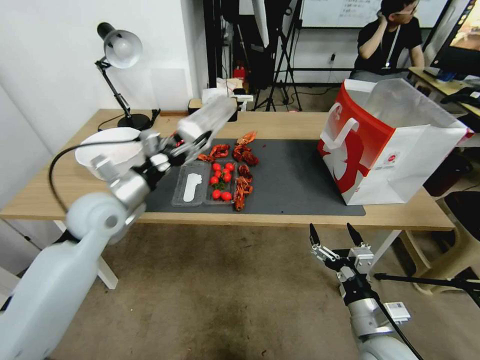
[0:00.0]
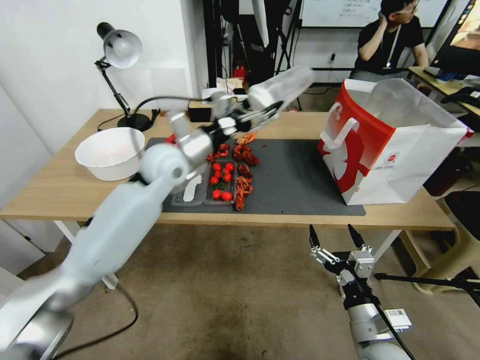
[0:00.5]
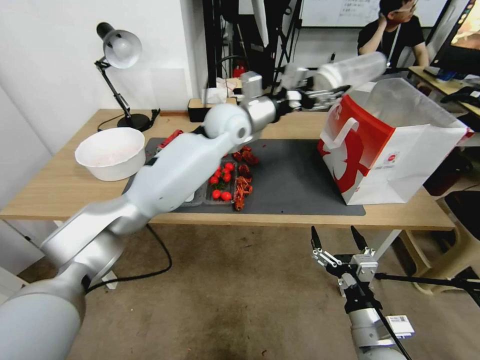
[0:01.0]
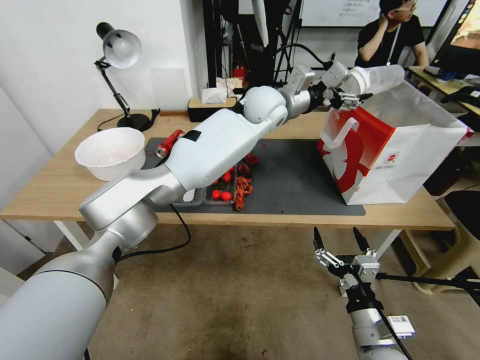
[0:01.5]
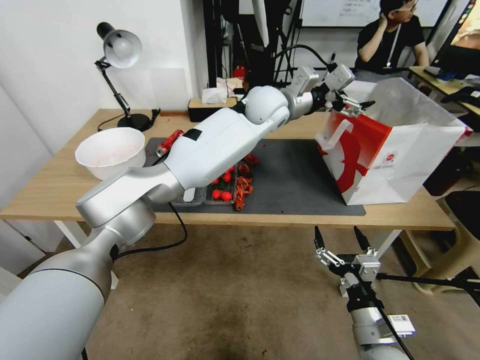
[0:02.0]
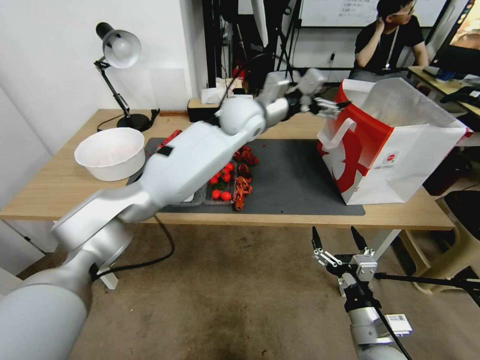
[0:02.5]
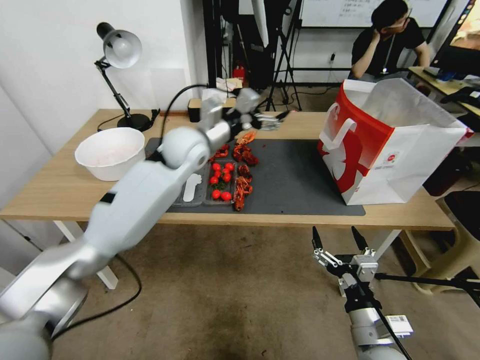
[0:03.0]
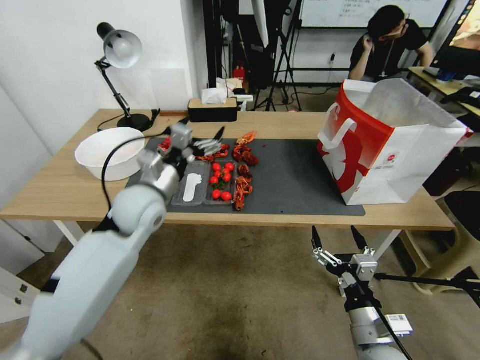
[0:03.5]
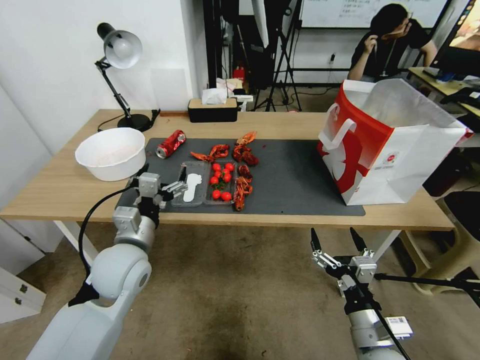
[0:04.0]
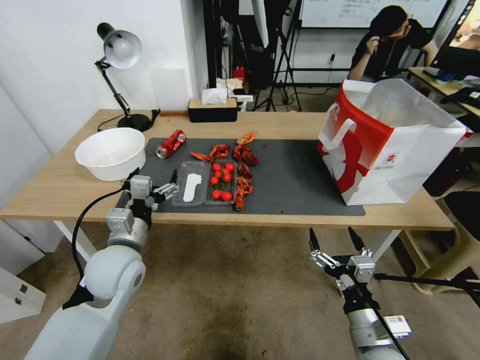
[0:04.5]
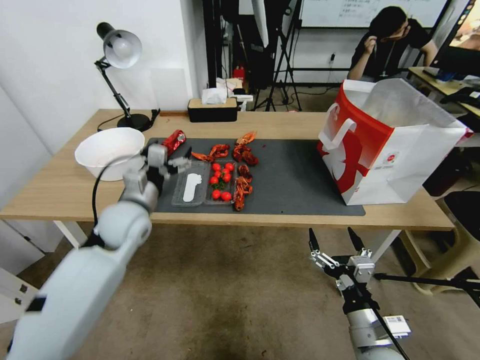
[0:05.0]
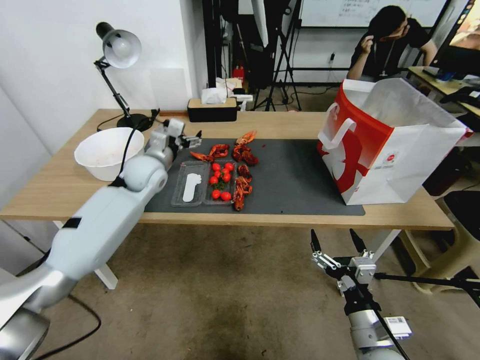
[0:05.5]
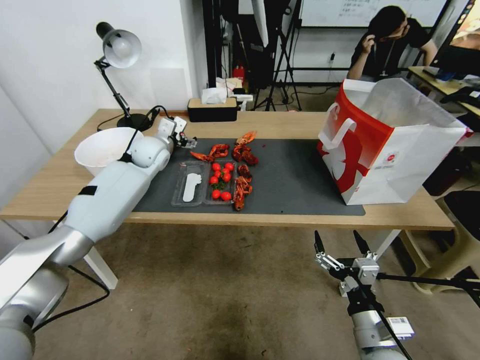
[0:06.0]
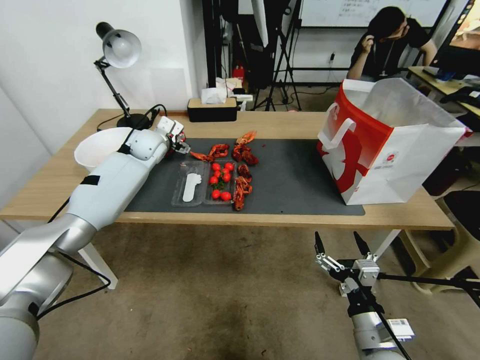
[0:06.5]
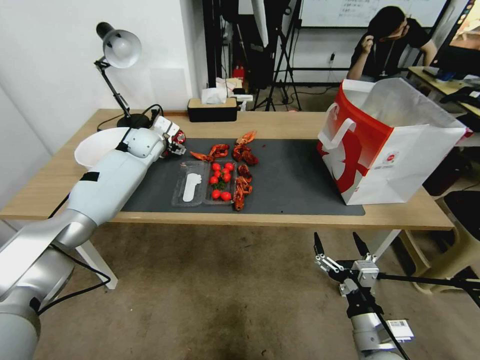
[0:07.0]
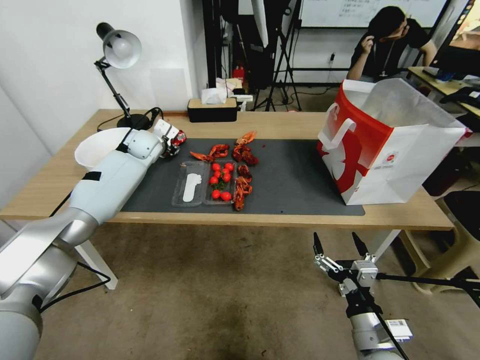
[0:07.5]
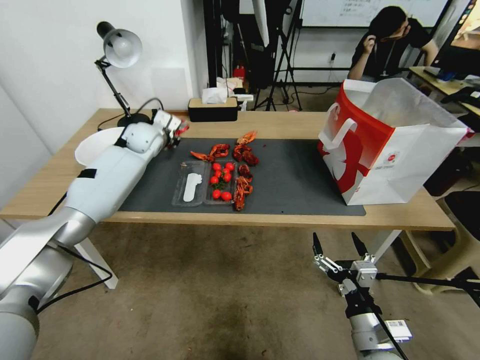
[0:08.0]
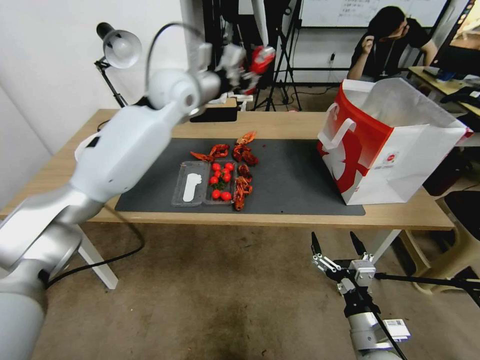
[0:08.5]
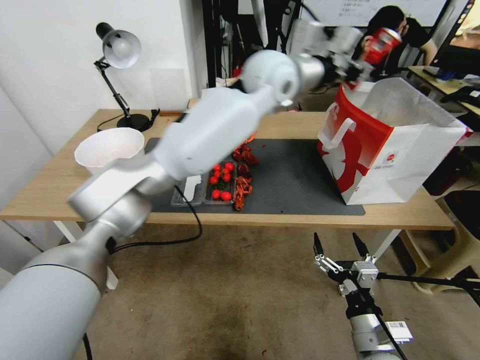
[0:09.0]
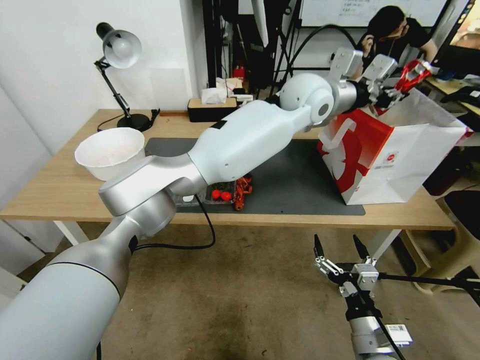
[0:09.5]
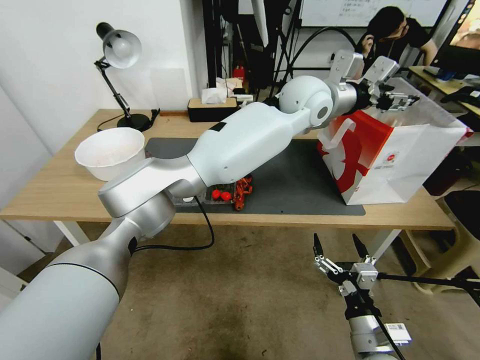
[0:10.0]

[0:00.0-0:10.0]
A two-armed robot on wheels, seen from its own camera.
0.0 to 2.0 s: The left gripper goes roughly 40 cm to the right and forward.
2.0 to 4.0 s: The left gripper travels to the left, backward and downward by about 40 cm.
4.0 to 6.0 s: The left gripper moves forward, about 25 cm.
6.0 to 8.0 s: The left gripper heads forward, covering approximately 5 cm, and closes its fingers.
8.0 to 10.0 s: The left gripper moves to the right, some 40 cm, and opens up.

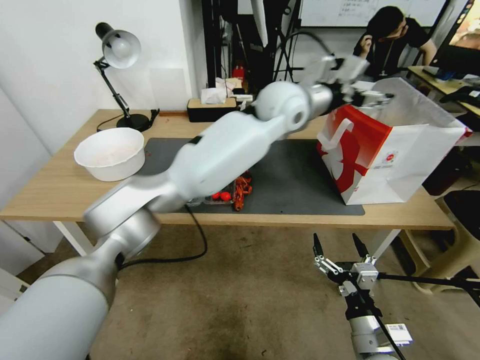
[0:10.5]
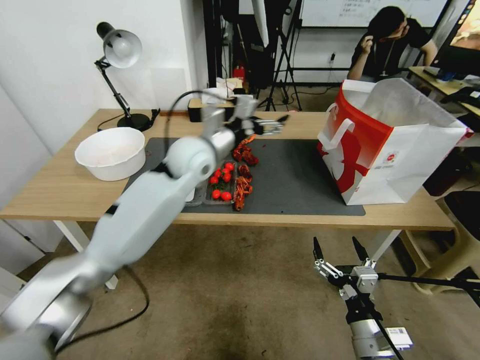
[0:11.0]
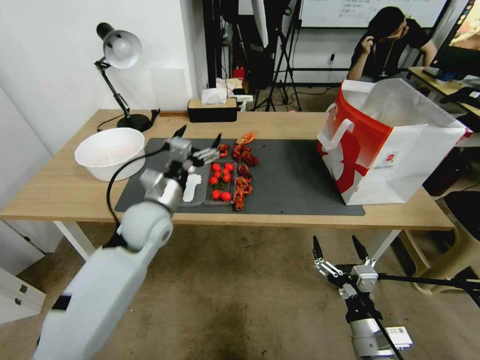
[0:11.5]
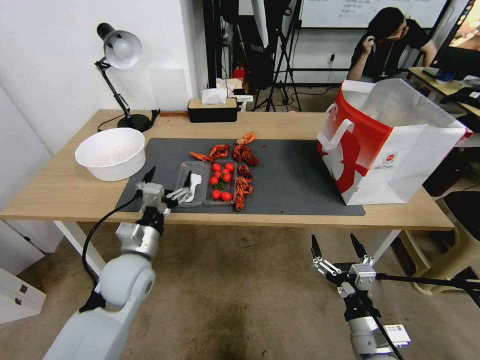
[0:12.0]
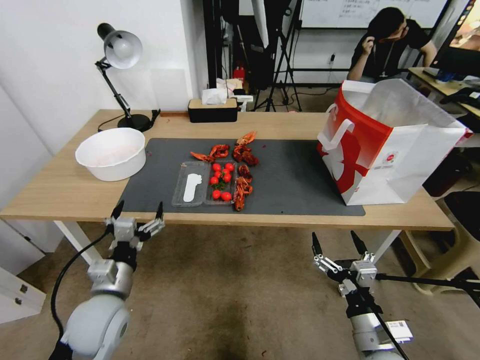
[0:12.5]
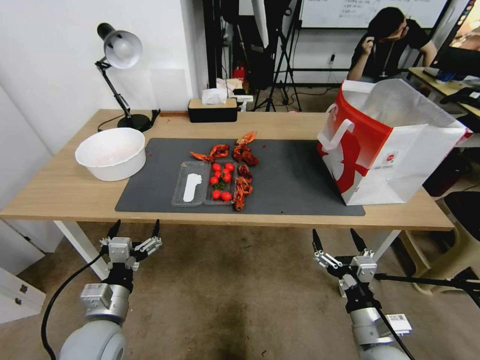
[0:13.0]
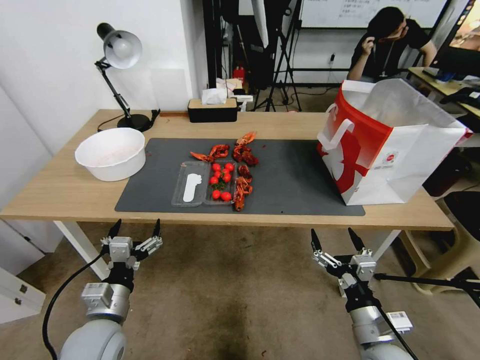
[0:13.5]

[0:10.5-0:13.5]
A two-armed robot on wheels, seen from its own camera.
10.5 to 12.0 s: The left gripper shifts some 50 cm to the left, downward and backward.
12.0 to 13.5 s: The left gripper is displaced backward by roughly 10 cm.

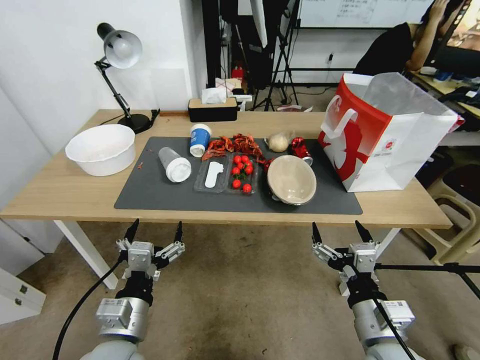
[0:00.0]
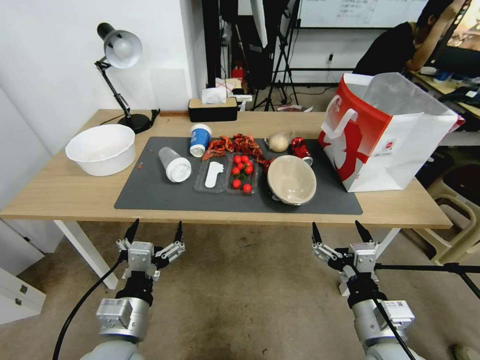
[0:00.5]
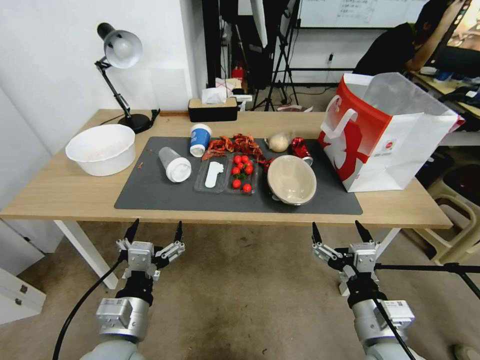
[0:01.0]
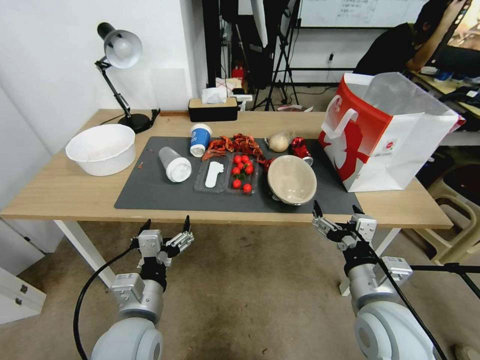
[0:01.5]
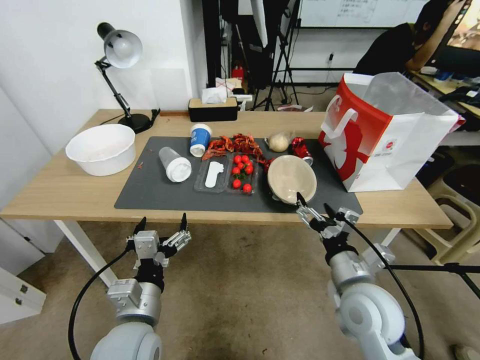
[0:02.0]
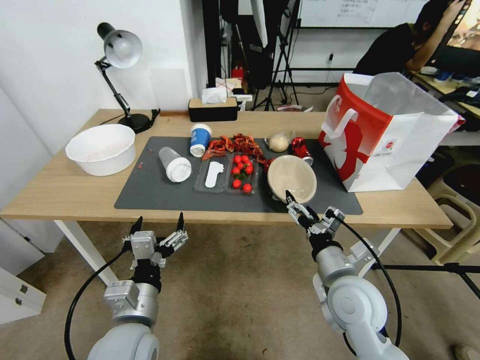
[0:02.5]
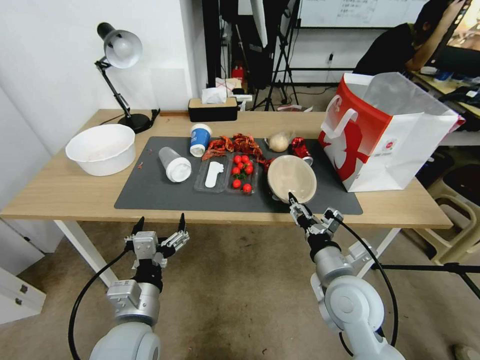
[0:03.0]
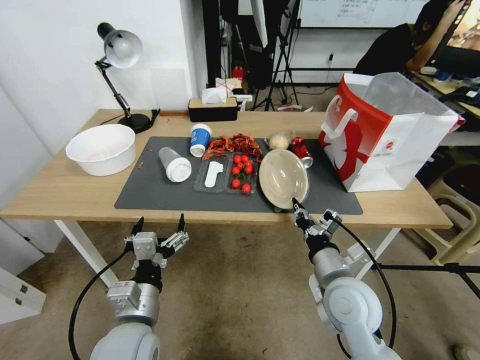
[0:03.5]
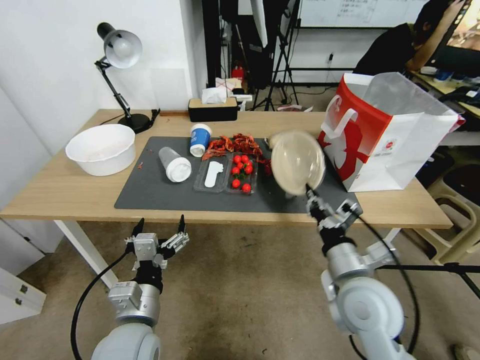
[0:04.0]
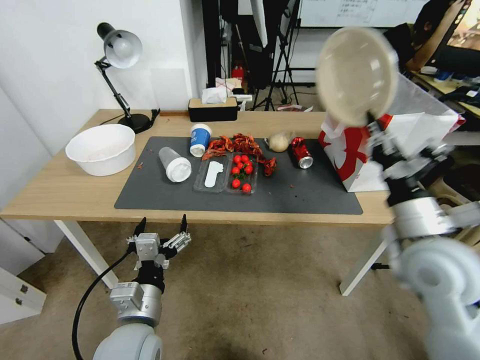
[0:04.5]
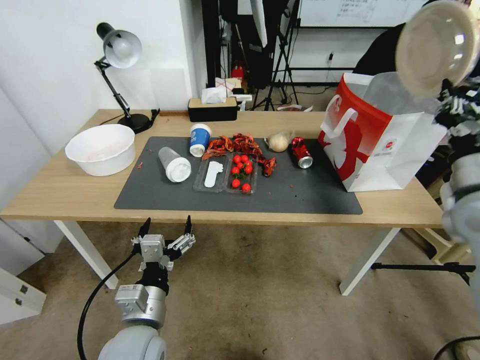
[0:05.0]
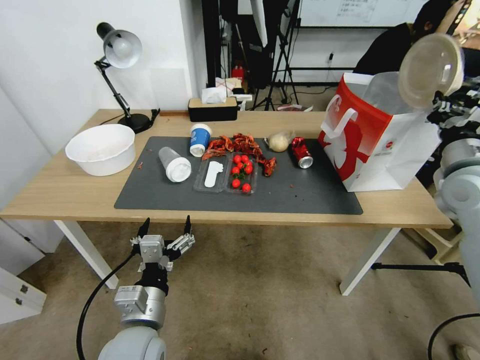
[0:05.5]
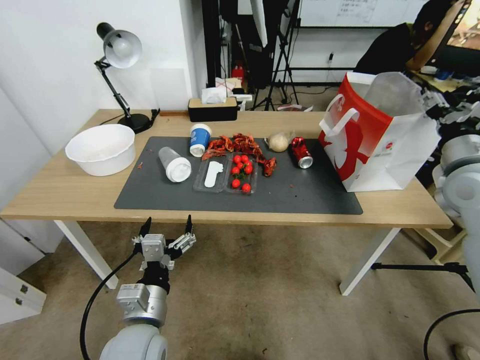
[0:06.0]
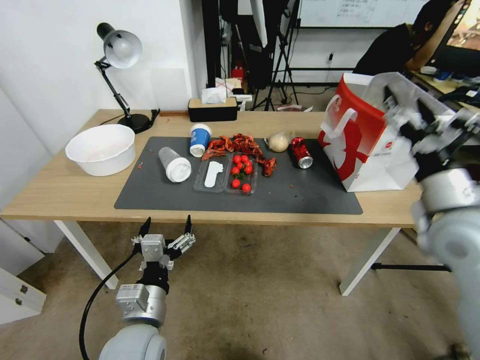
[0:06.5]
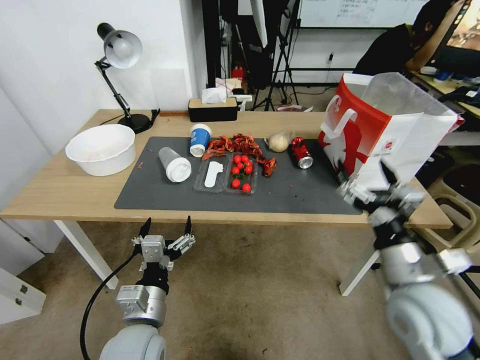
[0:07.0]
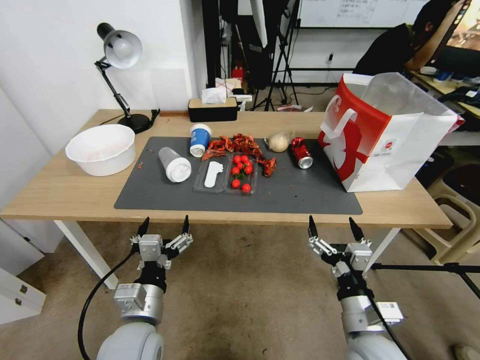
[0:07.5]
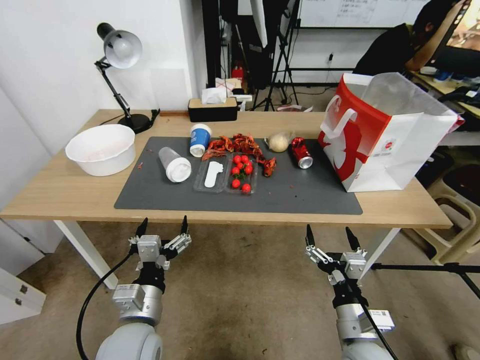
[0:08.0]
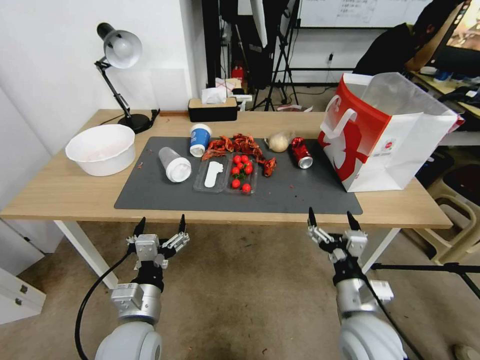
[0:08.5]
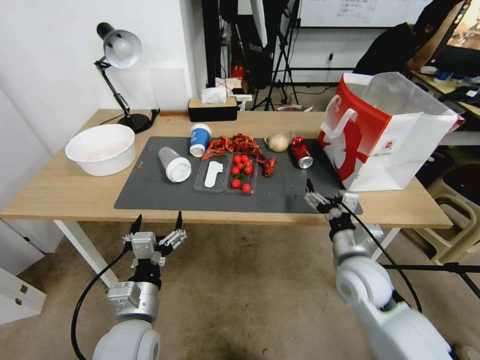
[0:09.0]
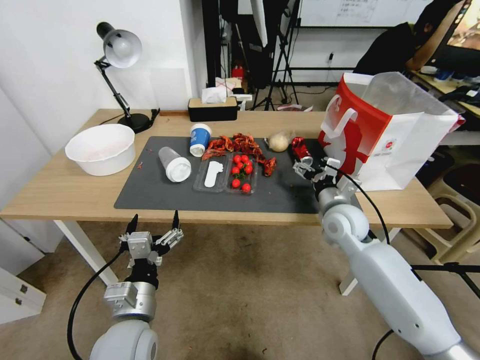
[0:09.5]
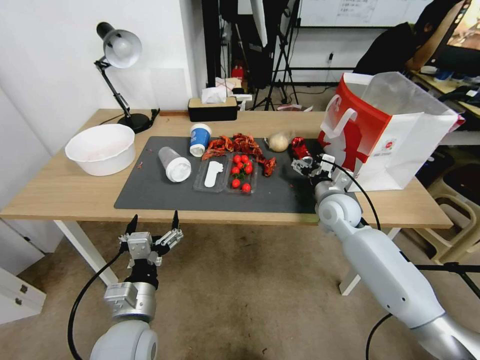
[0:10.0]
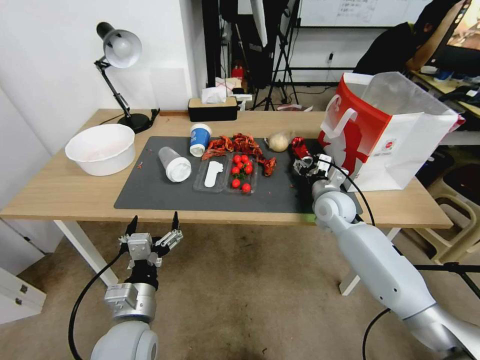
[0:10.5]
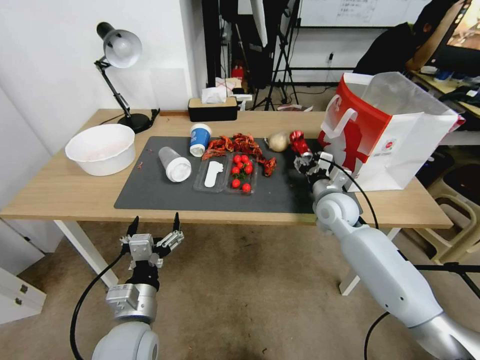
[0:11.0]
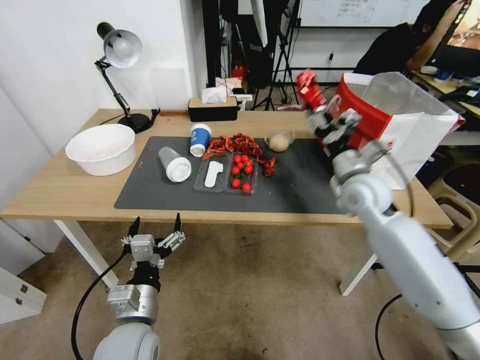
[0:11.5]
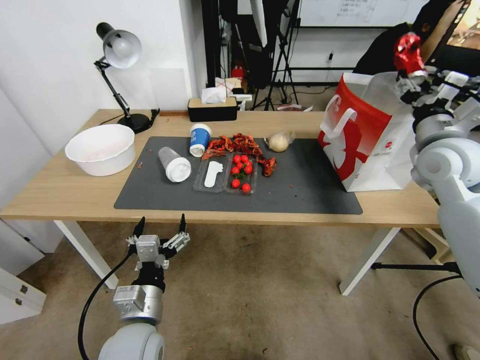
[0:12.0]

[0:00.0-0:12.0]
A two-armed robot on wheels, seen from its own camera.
2.0 to 4.0 s: The right gripper closes.
4.0 to 6.0 s: The right gripper heads to the right, upward and forward, covering about 30 cm, and opens.
6.0 to 8.0 s: The right gripper is displaced downward, backward and to the left by some 40 cm, and opens its fingers.
8.0 to 10.0 s: The right gripper heads forward, covering roughly 30 cm.
10.0 to 12.0 s: The right gripper travels upward and to the right by about 25 cm, and closes its fingers.

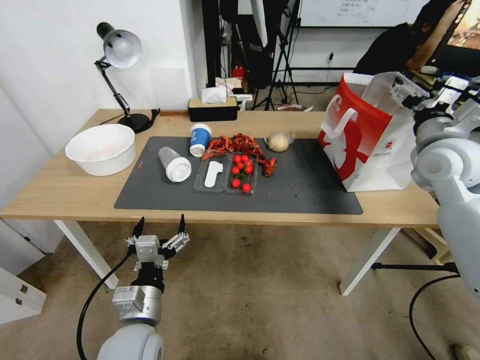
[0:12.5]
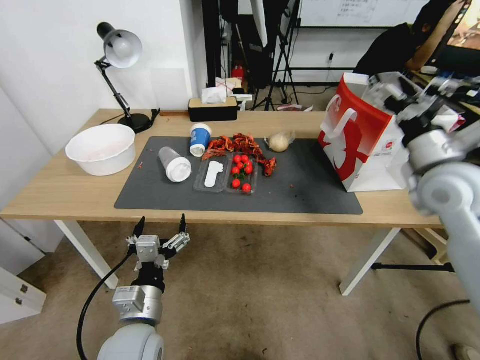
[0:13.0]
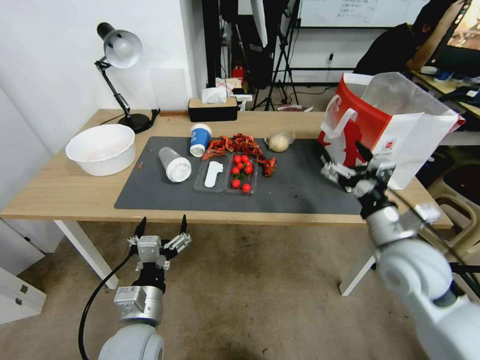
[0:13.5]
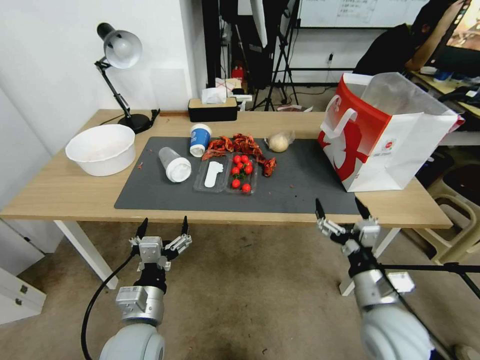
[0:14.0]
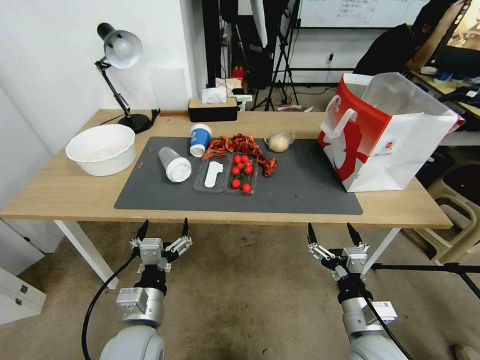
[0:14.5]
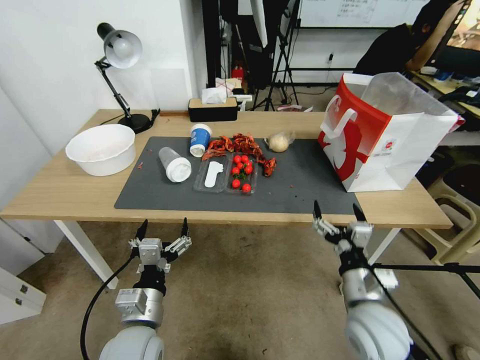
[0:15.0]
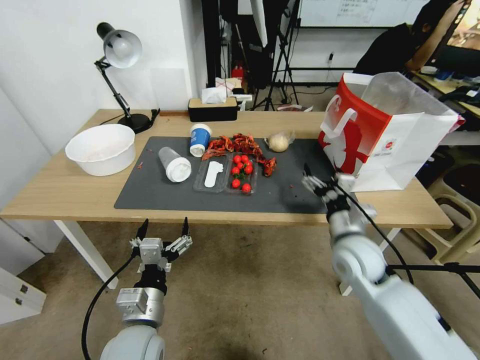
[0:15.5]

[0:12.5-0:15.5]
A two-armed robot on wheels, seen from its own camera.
12.5 to 14.0 s: The right gripper moves backward, downward and to the left, roughly 35 cm.
14.0 to 15.5 s: The right gripper heads forward, covering some 15 cm.
